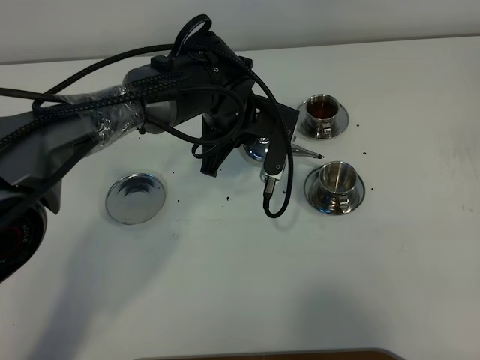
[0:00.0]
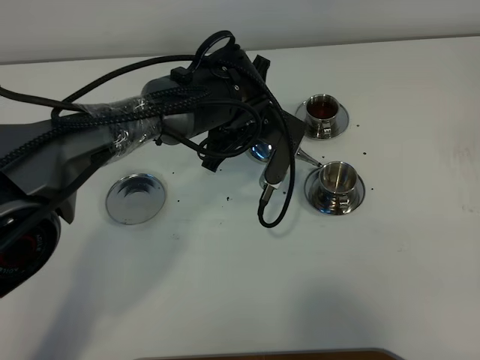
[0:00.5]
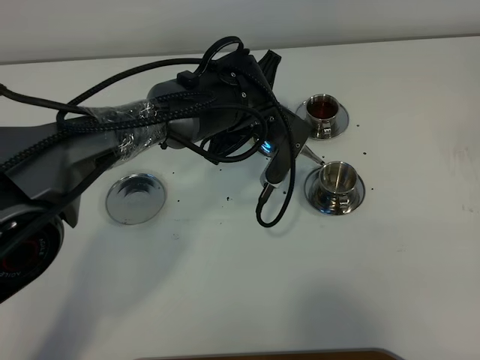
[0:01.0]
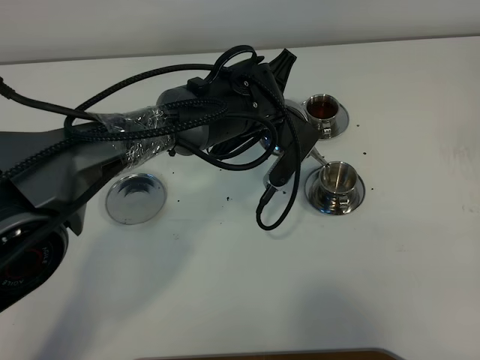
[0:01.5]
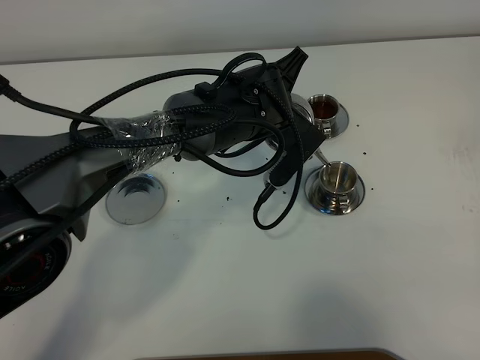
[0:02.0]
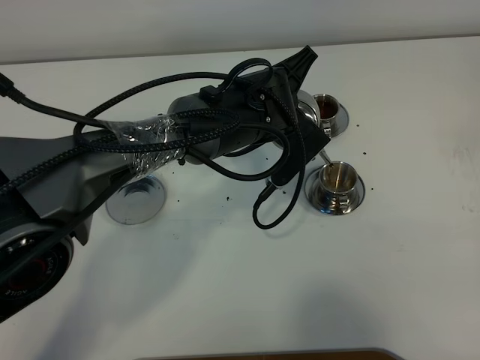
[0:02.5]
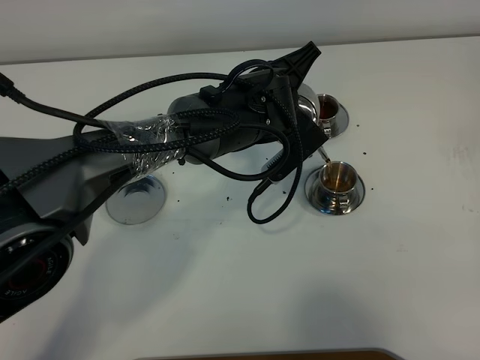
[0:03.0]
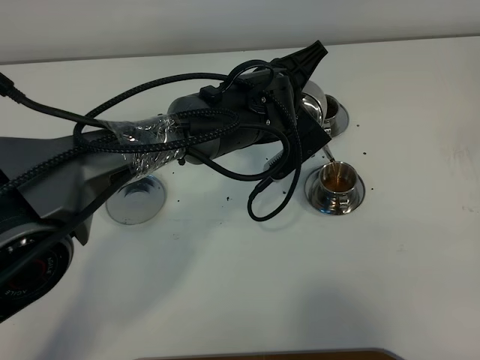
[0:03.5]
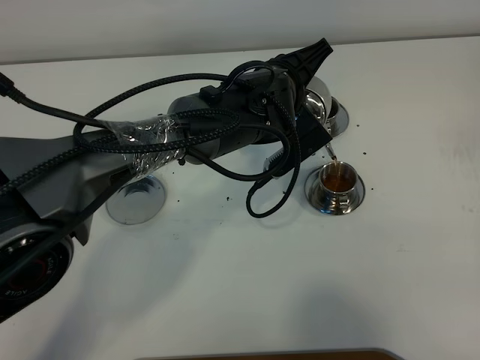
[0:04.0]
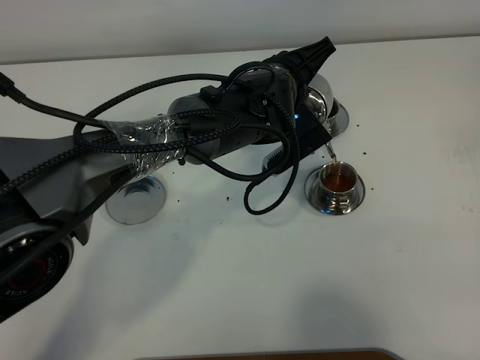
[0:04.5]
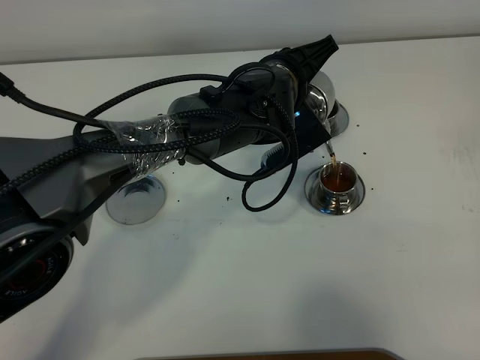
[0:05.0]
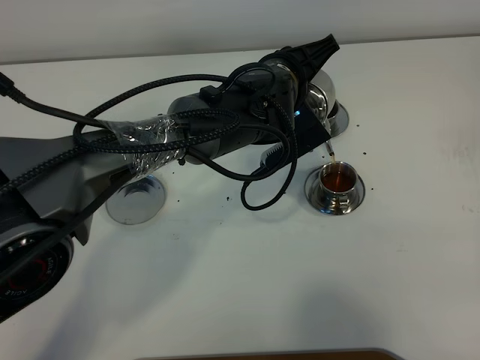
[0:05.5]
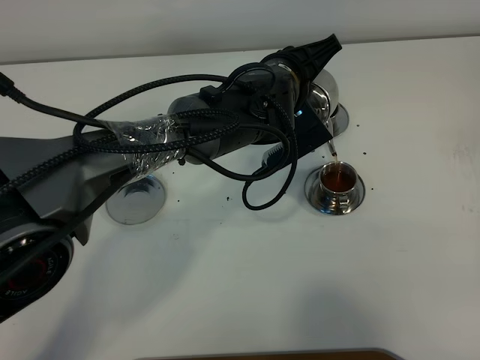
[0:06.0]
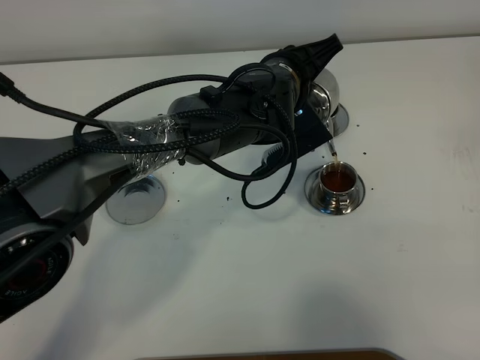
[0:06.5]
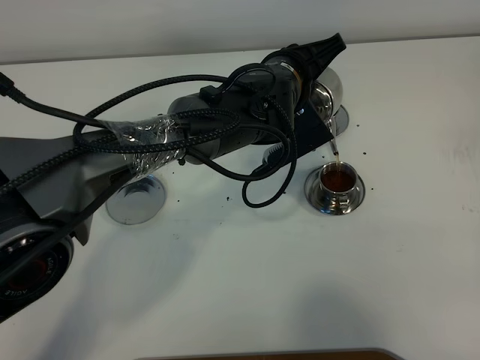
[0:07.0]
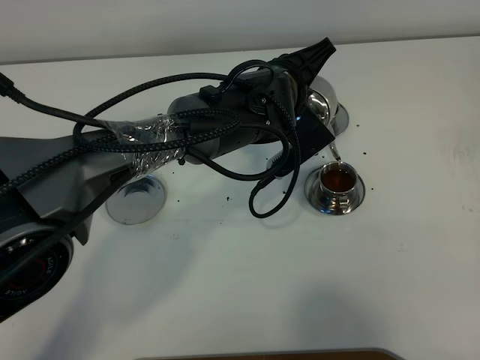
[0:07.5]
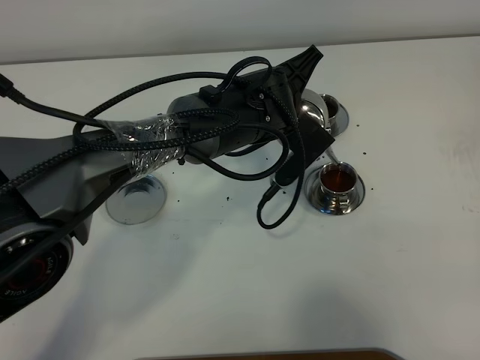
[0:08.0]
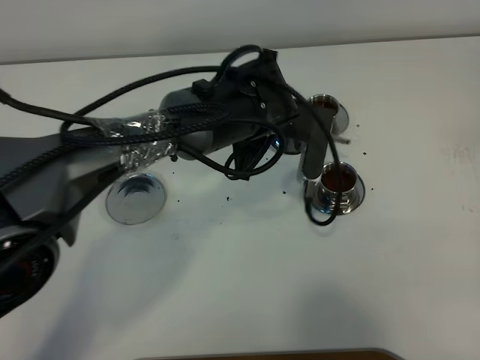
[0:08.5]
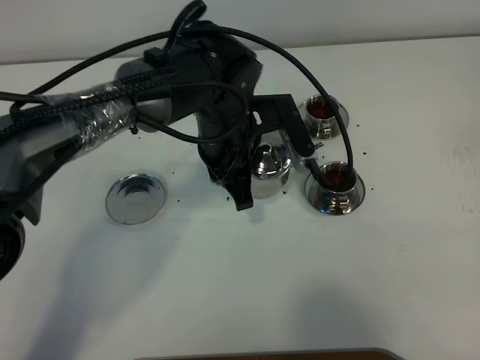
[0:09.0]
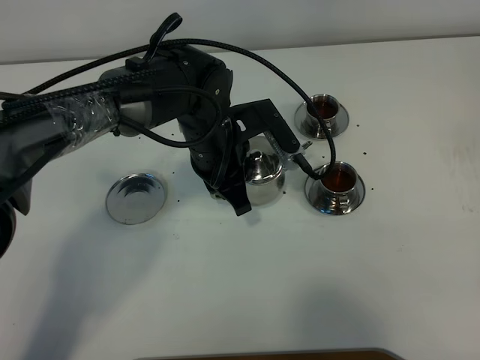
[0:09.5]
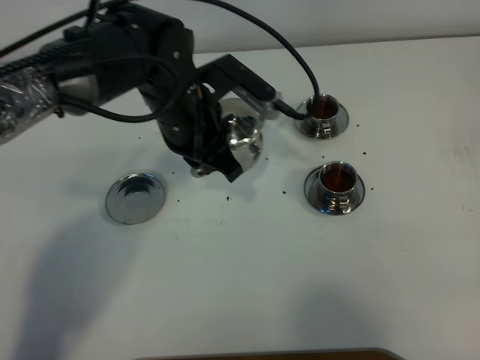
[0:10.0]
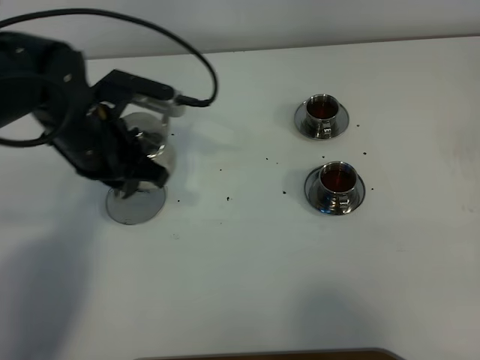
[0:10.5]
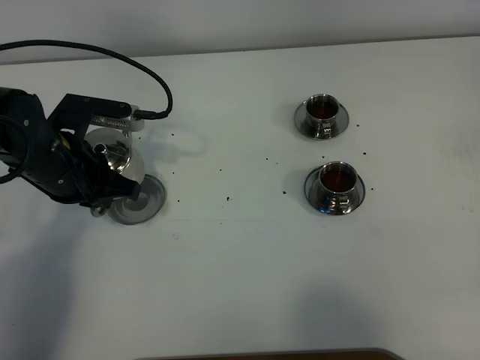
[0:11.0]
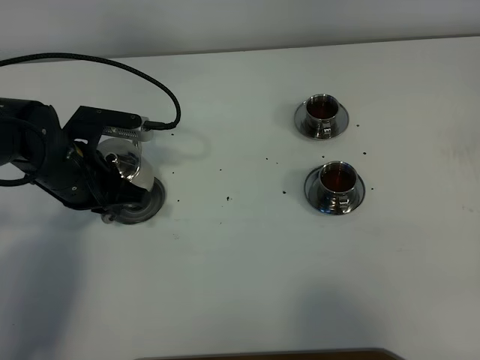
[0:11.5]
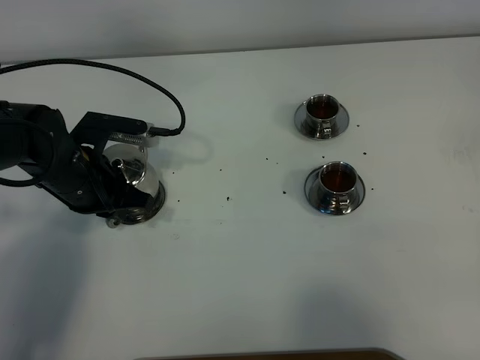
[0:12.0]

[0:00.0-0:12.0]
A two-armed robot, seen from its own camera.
Task of the whole recording: grasp the stainless steel teapot and pour the tea into the two stainless steel teacups one by one, put the stainless steel teapot back in its original place.
Step, 0:00.0 to 0:08.0: Pour tea into the teacup with the left gripper.
0:02.0 to 0:04.0: There are only small adjustments of the grippers.
0:04.0 to 0:08.0: The grippers move only a little.
0:08.0 to 0:10.0: The left gripper is displaced to the left by some 10 cm.
0:10.0 to 0:12.0: The left gripper heads to the left and downward, covering roughly 15 cm.

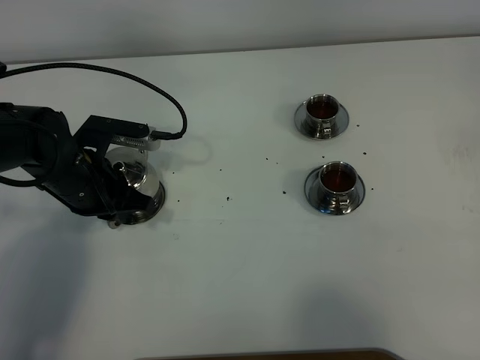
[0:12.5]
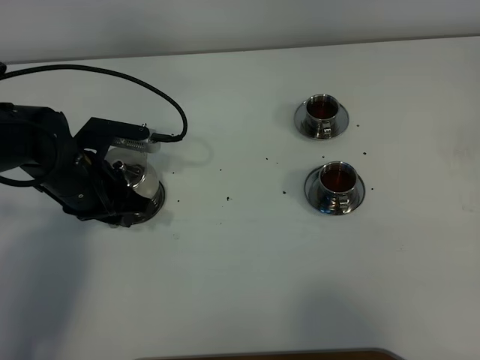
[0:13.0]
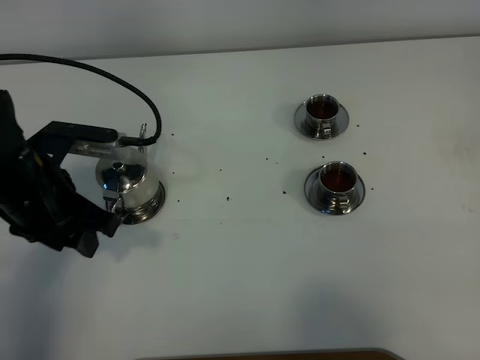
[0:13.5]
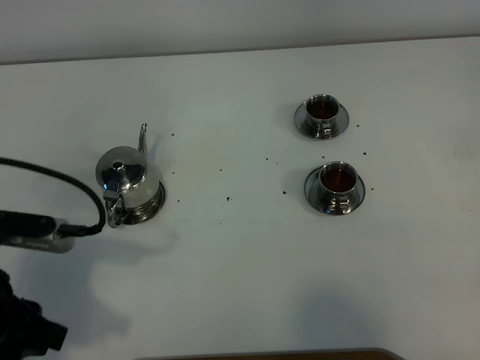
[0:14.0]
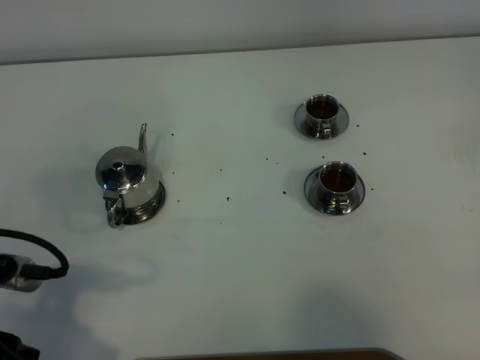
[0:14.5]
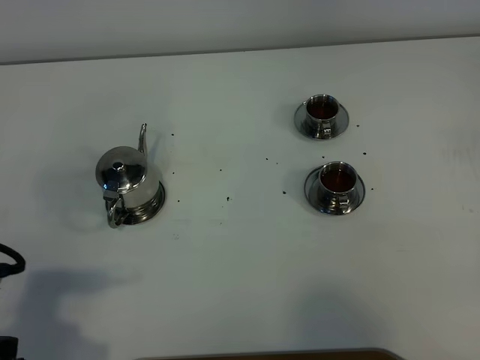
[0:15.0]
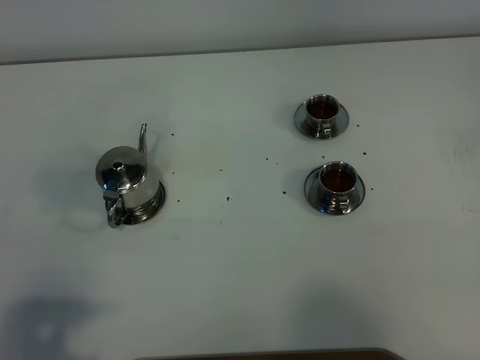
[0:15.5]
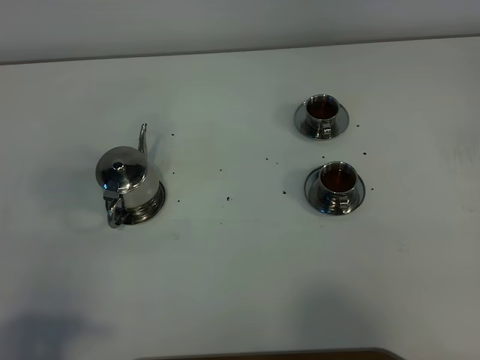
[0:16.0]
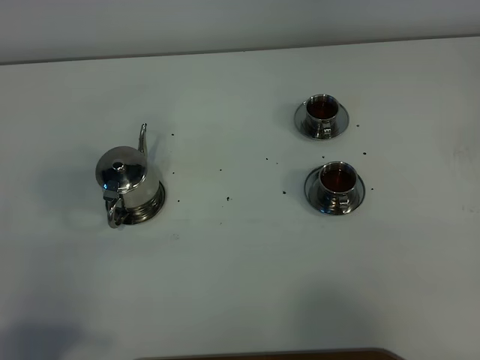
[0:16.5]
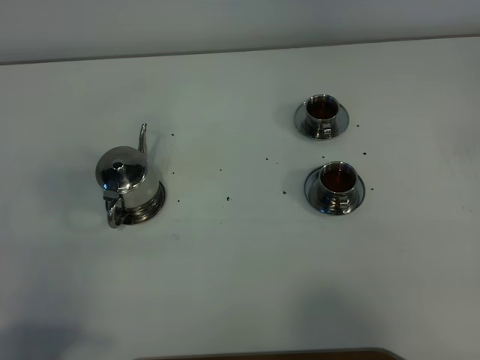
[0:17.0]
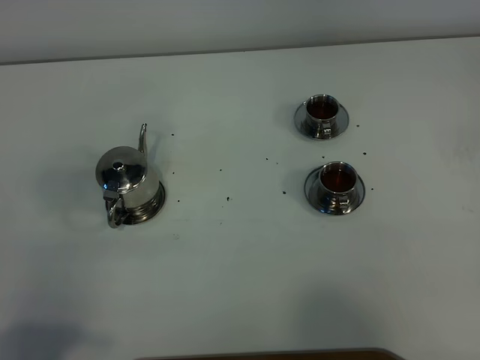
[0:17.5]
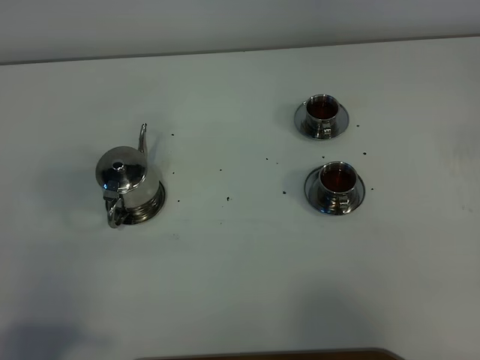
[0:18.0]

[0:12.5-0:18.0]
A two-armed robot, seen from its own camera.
Task of the whole recording: grasp the stainless steel teapot and pour the tea into the two stainless steel teacups one by one, put the stainless steel teapot back in its original place.
0:12.5 to 0:14.5: The left gripper is displaced backward by about 25 cm, and opens its fingers.
0:14.5 to 0:16.0: The left gripper is displaced backward by roughly 10 cm.
0:16.0 to 0:18.0: Neither gripper changes place.

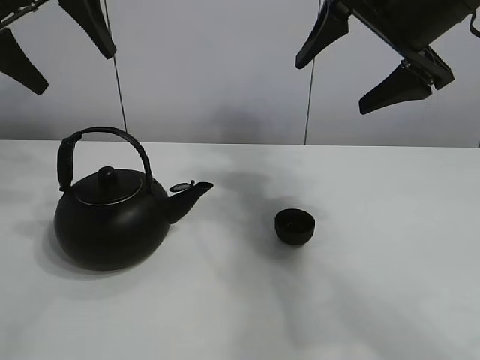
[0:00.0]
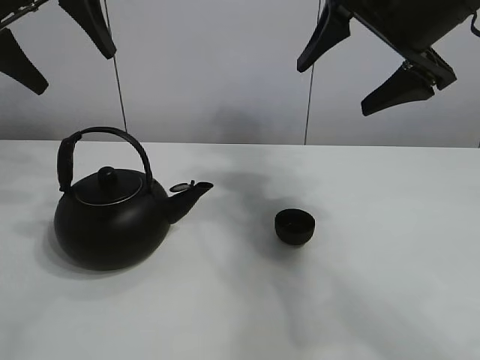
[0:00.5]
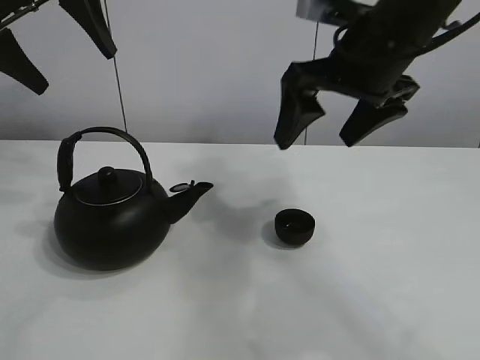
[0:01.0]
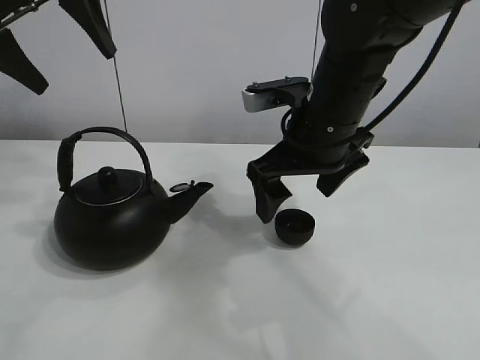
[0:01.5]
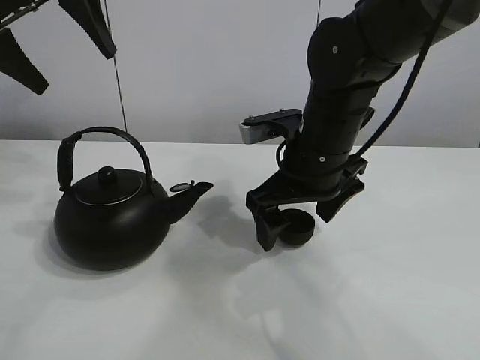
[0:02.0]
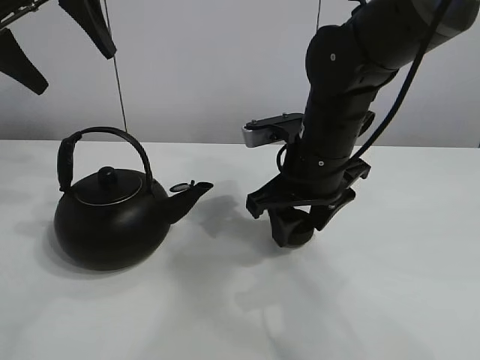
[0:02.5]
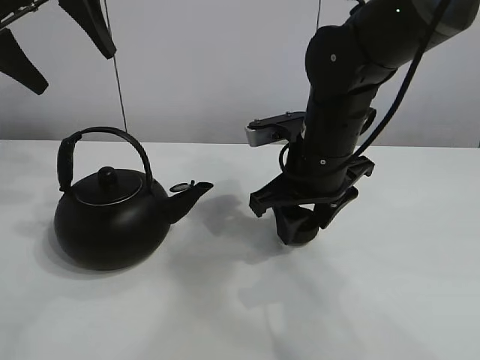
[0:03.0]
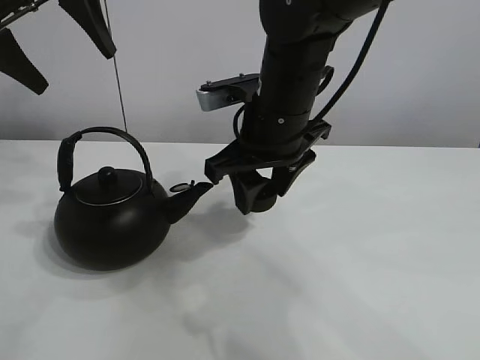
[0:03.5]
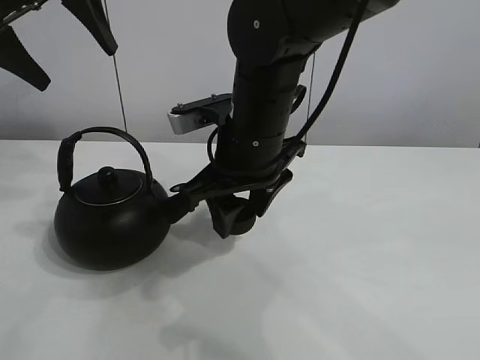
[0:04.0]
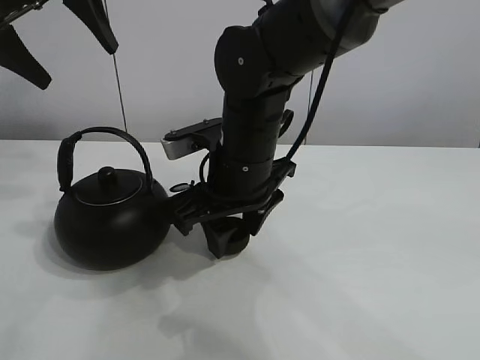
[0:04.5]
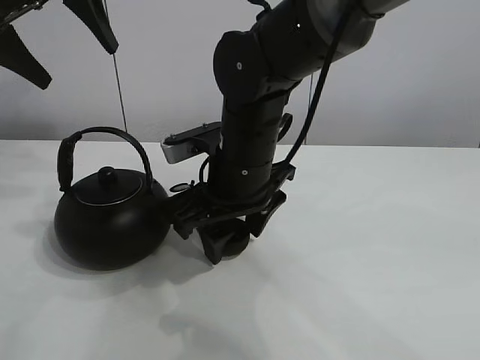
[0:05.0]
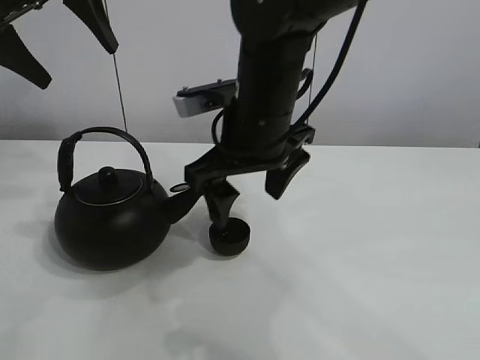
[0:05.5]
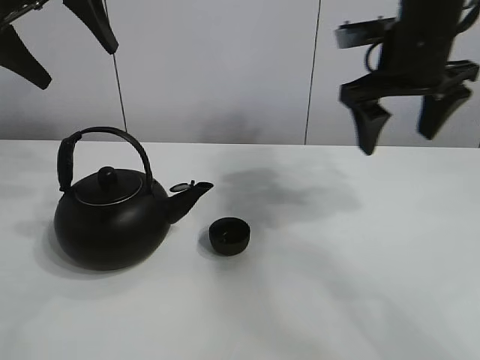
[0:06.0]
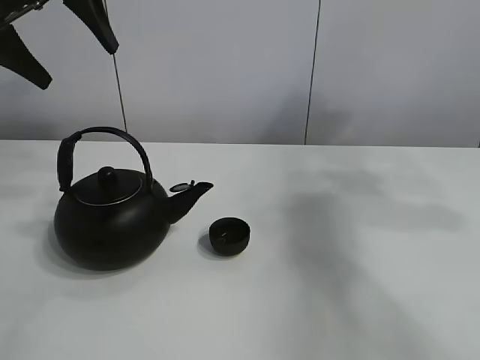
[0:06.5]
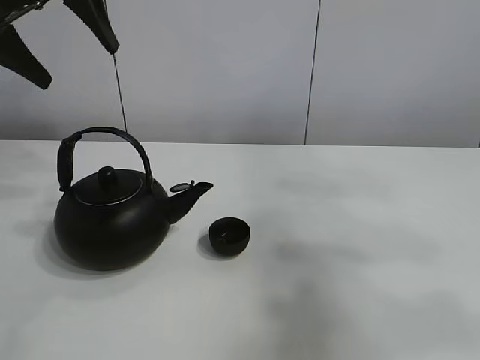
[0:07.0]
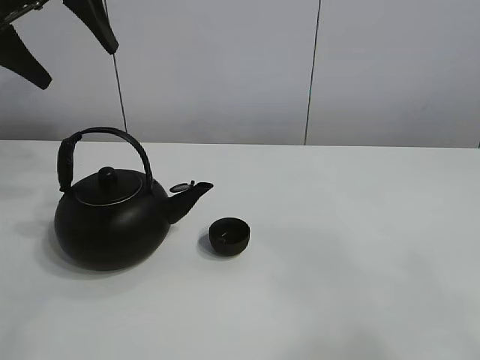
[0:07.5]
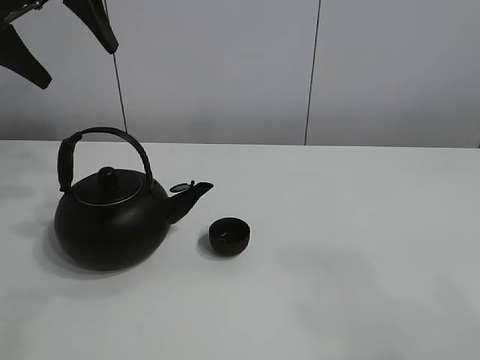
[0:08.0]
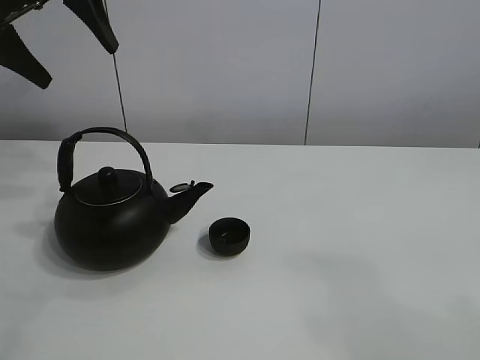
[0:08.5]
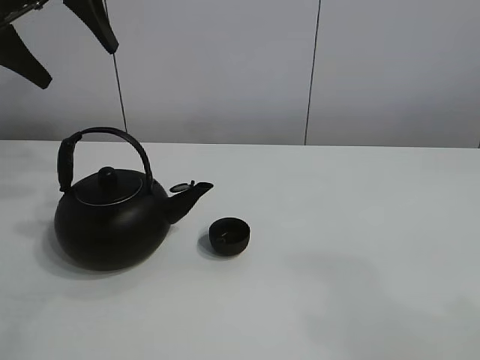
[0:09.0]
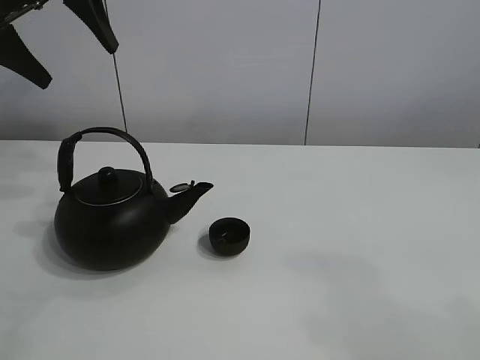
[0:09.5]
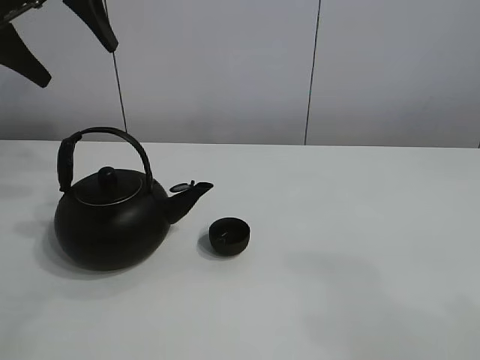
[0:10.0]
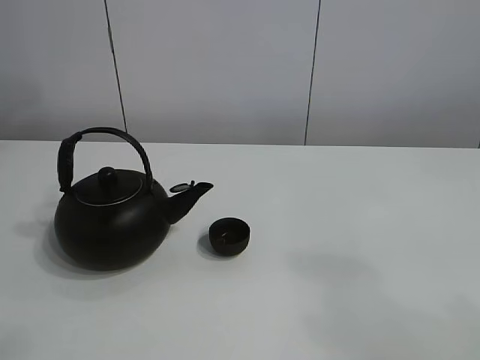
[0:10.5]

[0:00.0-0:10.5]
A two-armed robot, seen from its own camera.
Task of the whole recording: pour tea into the teacup.
Step, 0:00.0 to 0:03.0: Pick up the teacup with the right gripper.
Step, 0:03.5 to 0:04.5: Place the teacup in the center of view with the right gripper.
0:02.0 to 0:04.0: The right gripper travels to the left by approximately 5 cm, and closes up.
0:04.0 to 0:06.5: The right gripper goes roughly 35 cm to the right and upward, and opens up.
0:06.5 to 0:08.5: The right gripper travels backward by about 35 cm.
0:08.5 to 0:10.5: The left gripper heads upward and backward, covering about 15 cm.
